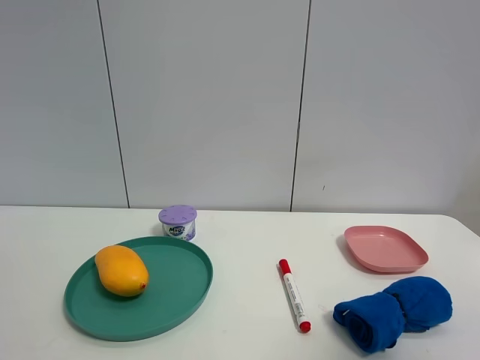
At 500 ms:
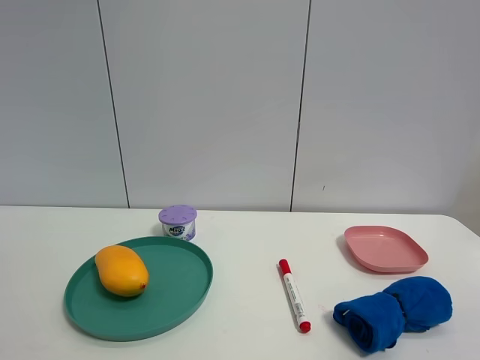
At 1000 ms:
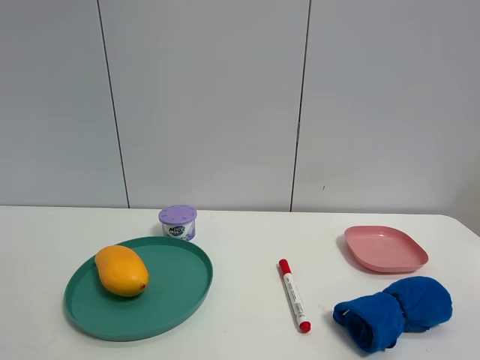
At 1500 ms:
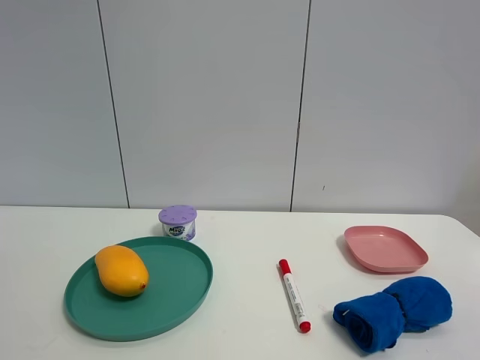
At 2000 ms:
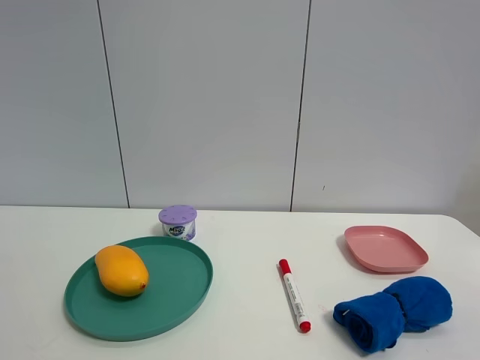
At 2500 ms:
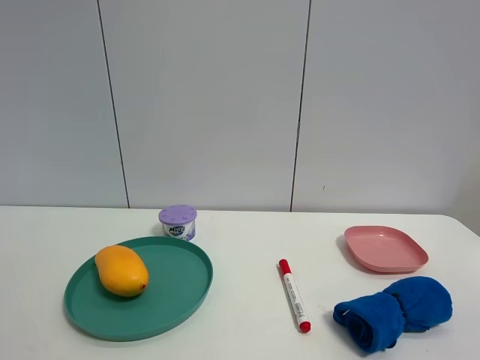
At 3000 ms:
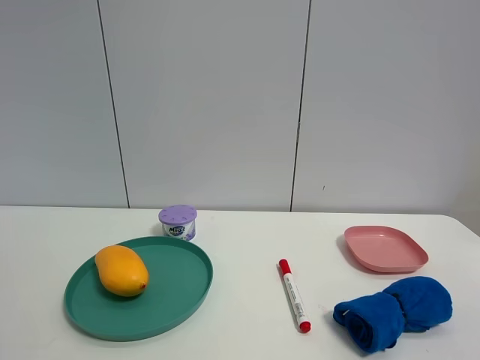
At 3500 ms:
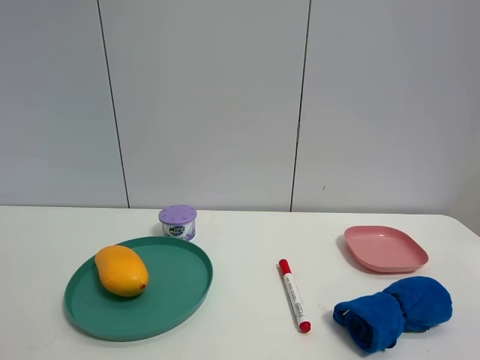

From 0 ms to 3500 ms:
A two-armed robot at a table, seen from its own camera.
Task of the whole recording: the gripper move the object.
From 2000 ms to 3500 ms: Neither gripper changes place.

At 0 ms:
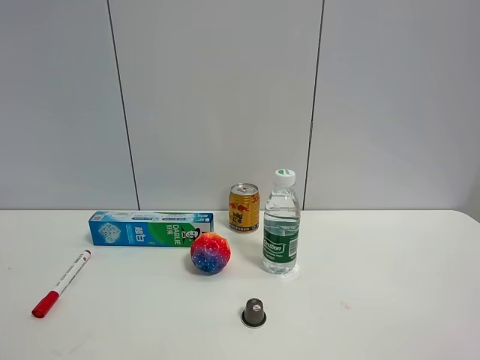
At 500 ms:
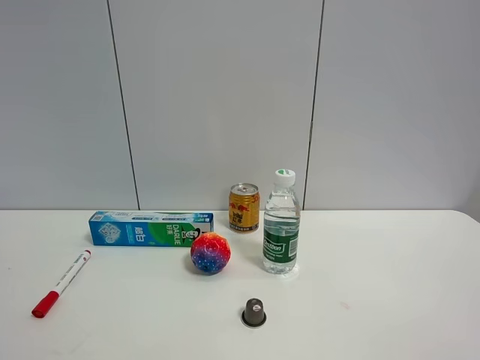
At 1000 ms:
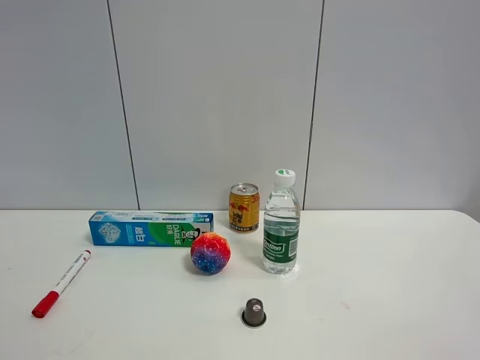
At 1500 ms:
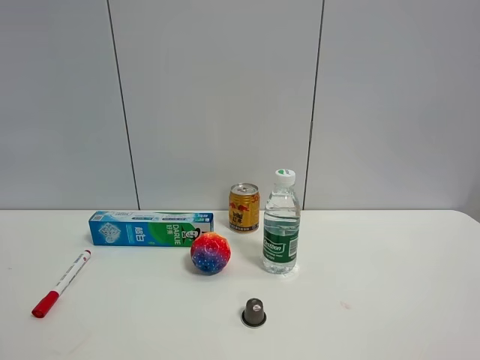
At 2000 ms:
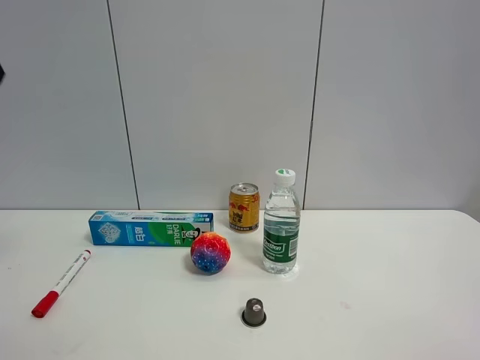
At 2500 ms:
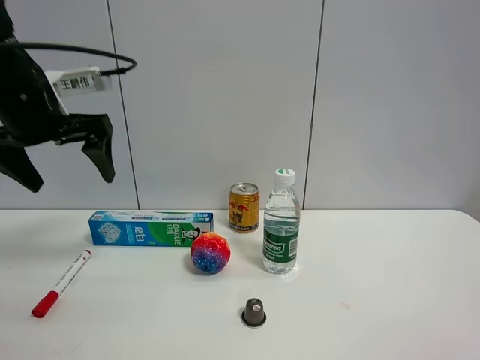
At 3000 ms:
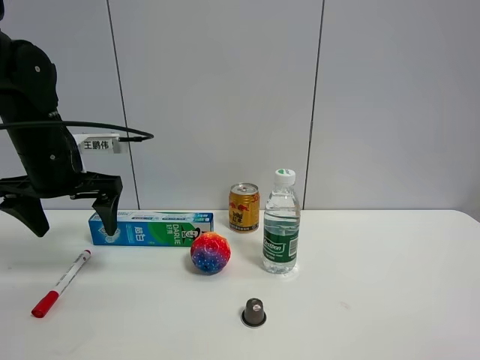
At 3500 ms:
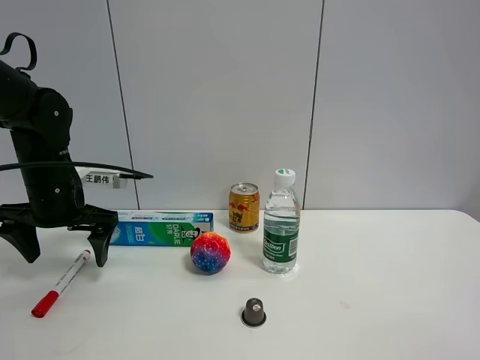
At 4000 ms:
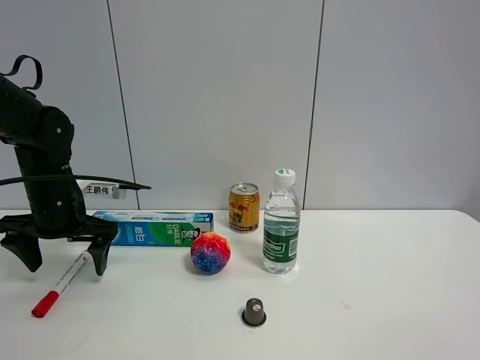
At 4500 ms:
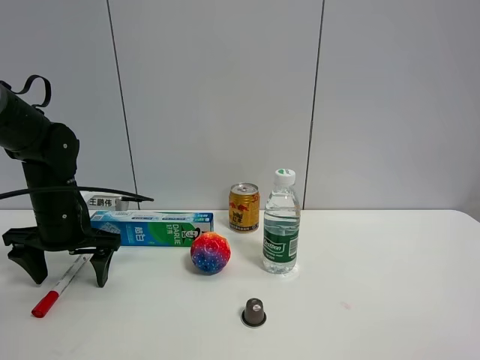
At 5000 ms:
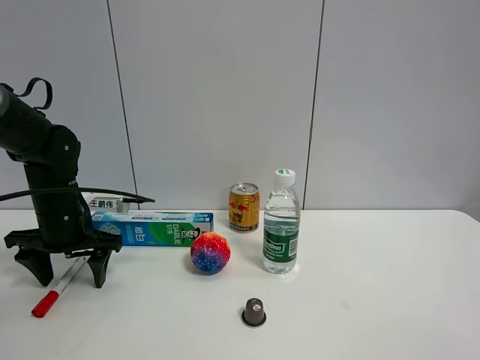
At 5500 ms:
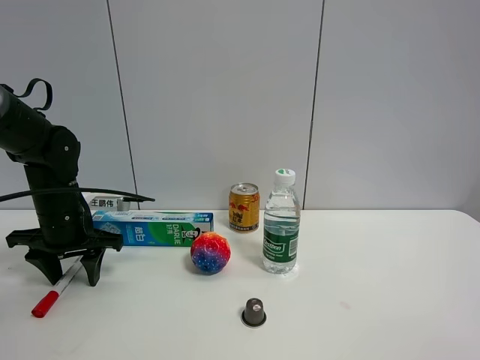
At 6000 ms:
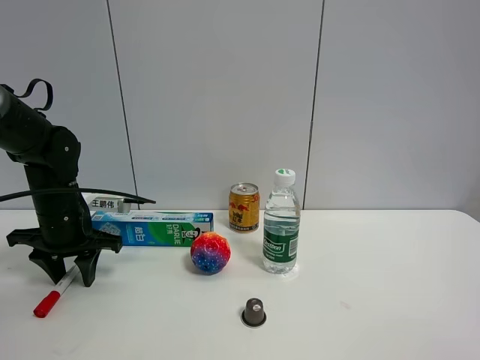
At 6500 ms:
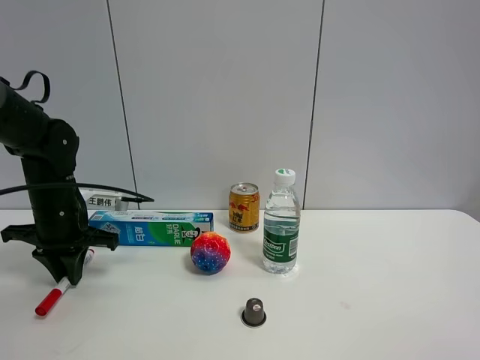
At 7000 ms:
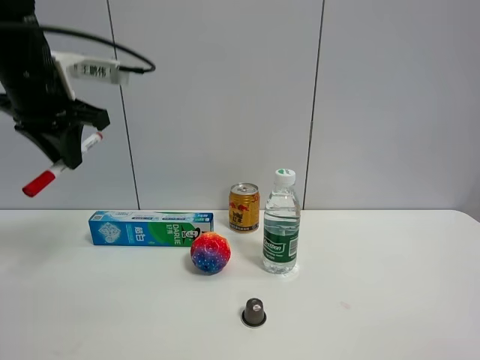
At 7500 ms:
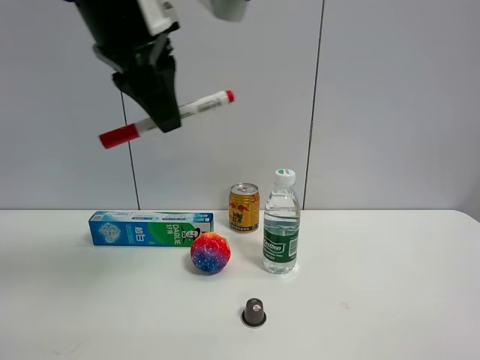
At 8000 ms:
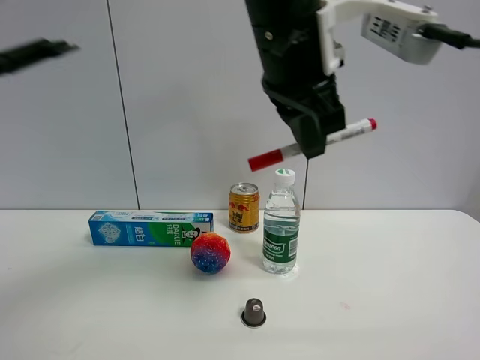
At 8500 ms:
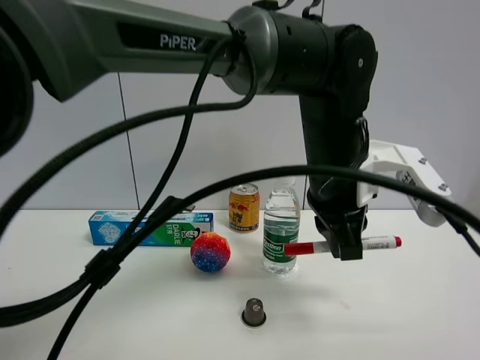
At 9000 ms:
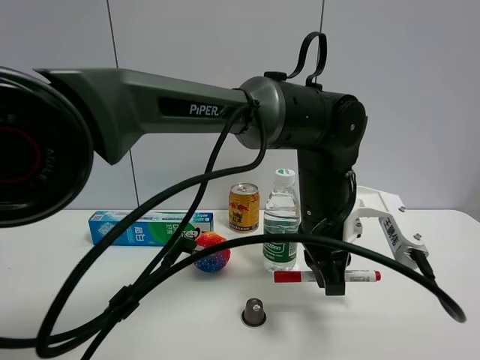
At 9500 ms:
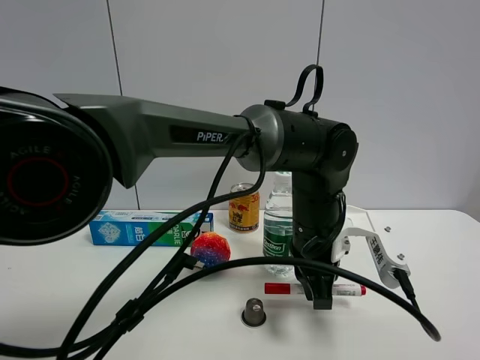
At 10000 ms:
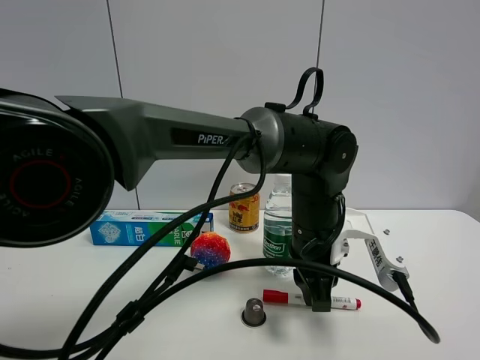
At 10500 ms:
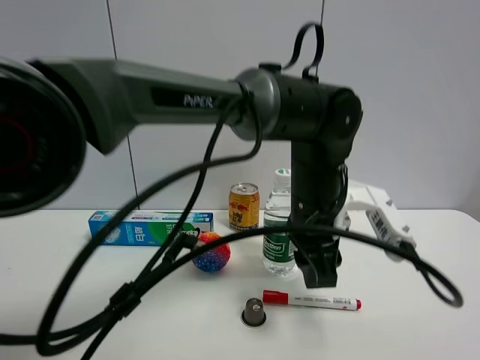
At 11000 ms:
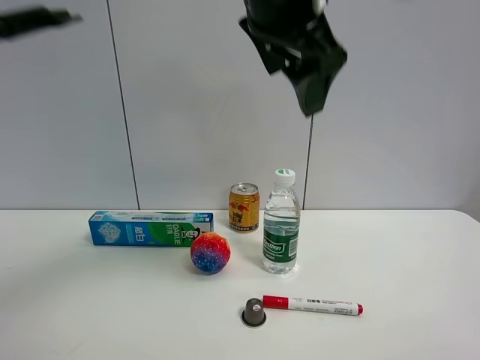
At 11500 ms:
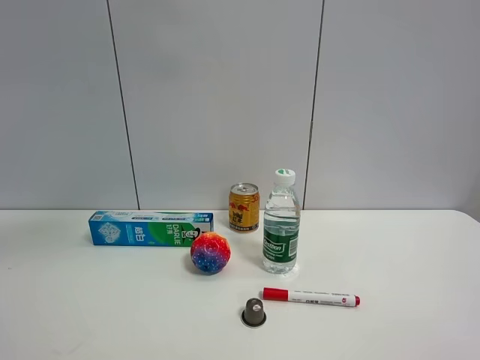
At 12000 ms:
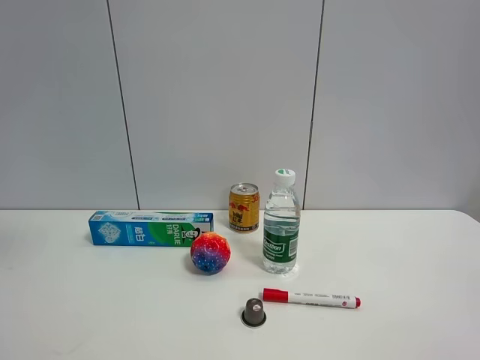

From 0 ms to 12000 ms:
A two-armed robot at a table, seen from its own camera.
Task of the whole recording: the gripper move the object.
Step, from 0 ms to 6000 ms: Grasp the red marker pen with the left gripper.
Step, from 6500 ms to 10000 ms: Place the red marker pen on the table with the left gripper.
From 2000 ms to 4000 ms: The left gripper moves downward and forward, some 30 cm.
From 4000 ms to 6000 ms: The left gripper closes its fingers.
From 6000 ms to 8000 ms: The left gripper shifts roughly 40 cm to the right and upward.
From 8000 ms to 10000 ms: The left gripper moves downward, approximately 20 cm.
From 10000 ms to 12000 ms: The left gripper is displaced upward and to the left by roughly 50 cm, and opens its fingers.

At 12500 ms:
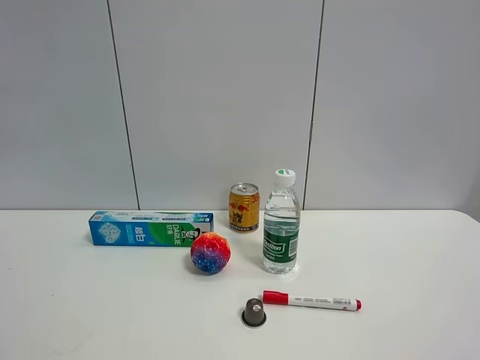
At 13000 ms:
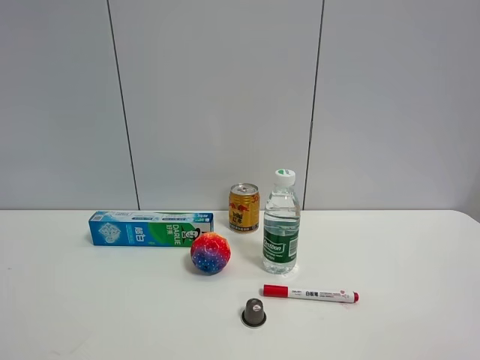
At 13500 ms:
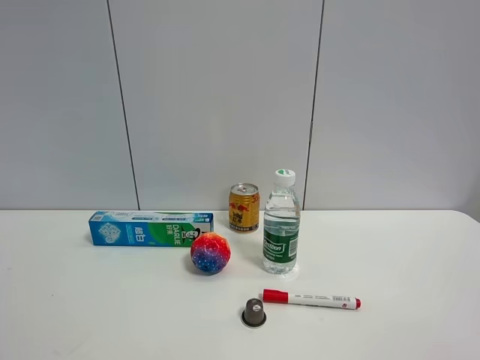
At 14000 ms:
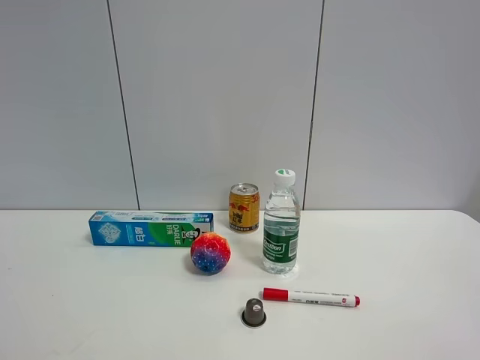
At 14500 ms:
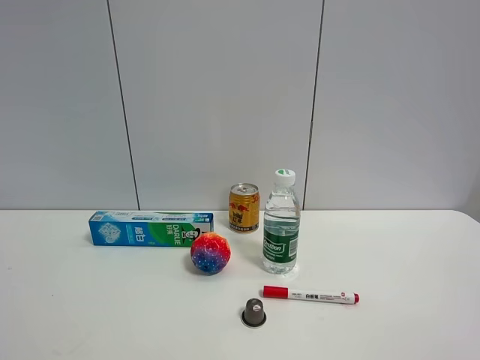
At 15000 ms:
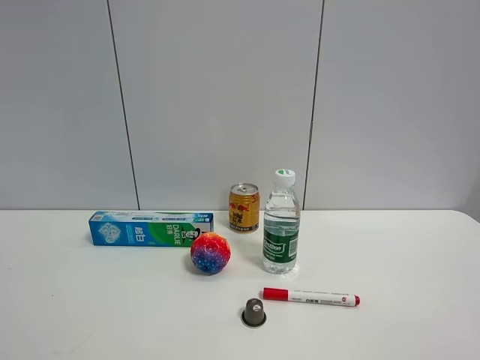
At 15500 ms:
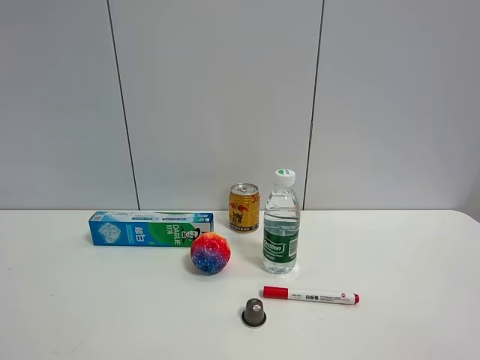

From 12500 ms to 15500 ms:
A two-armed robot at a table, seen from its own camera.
Task of the whole recording: the gripper move the object.
From 14000 ms to 15500 ms: Neither gripper changes place.

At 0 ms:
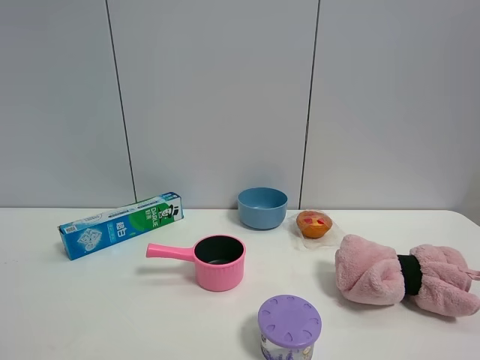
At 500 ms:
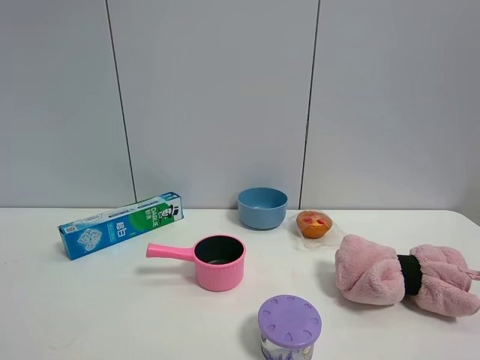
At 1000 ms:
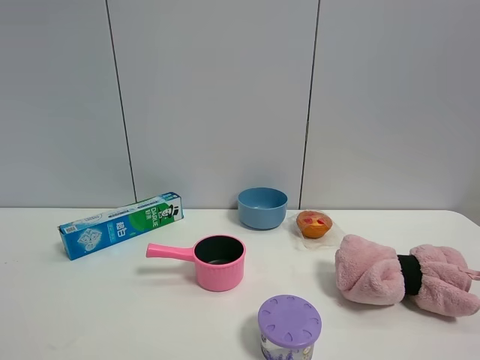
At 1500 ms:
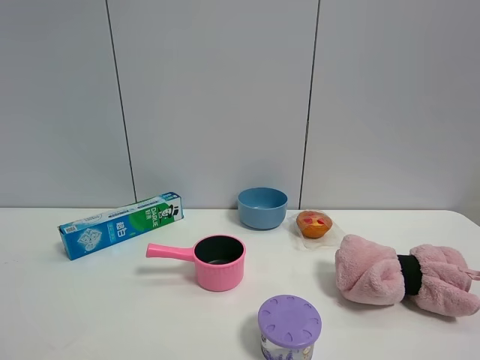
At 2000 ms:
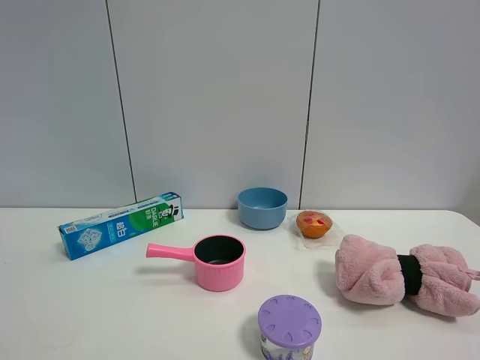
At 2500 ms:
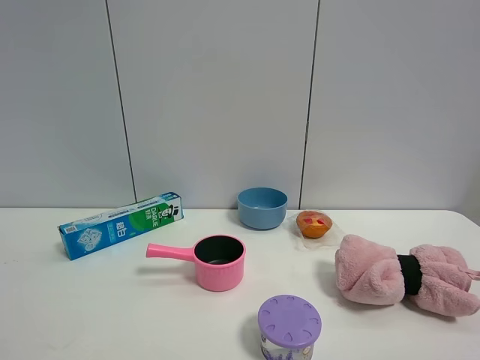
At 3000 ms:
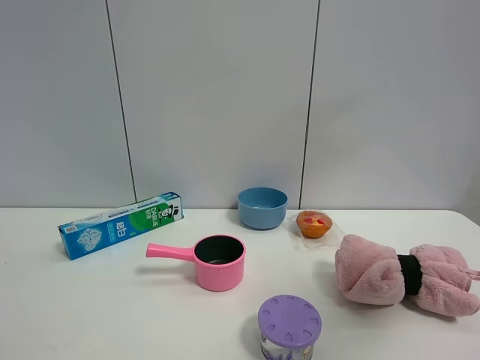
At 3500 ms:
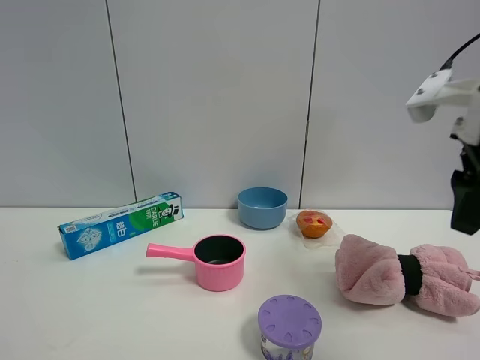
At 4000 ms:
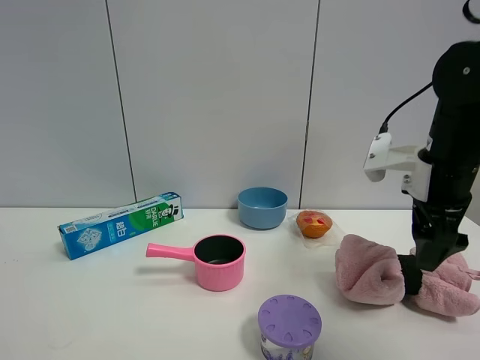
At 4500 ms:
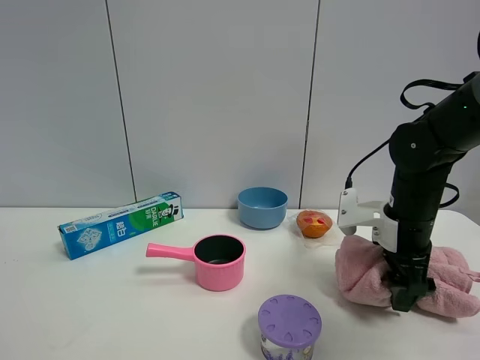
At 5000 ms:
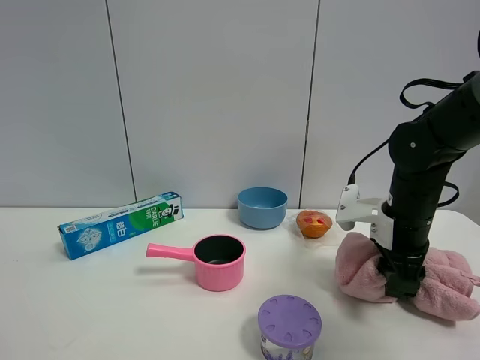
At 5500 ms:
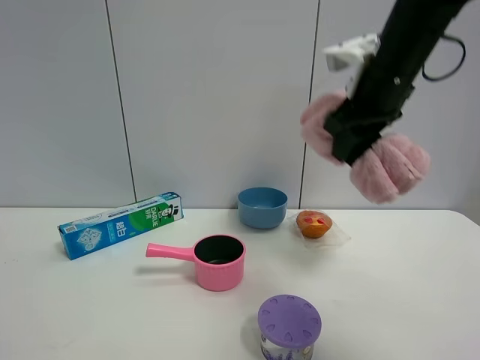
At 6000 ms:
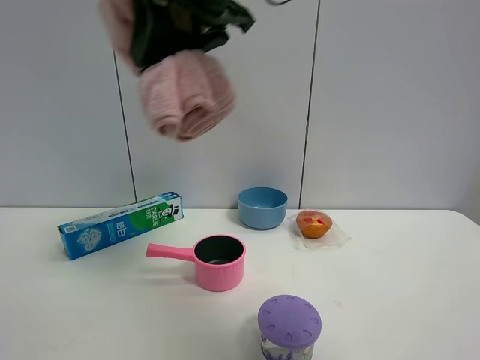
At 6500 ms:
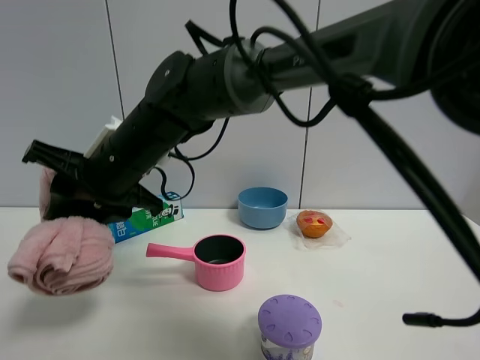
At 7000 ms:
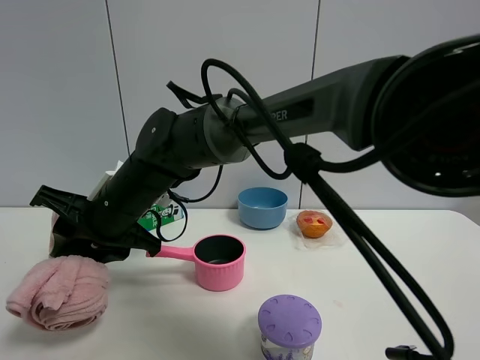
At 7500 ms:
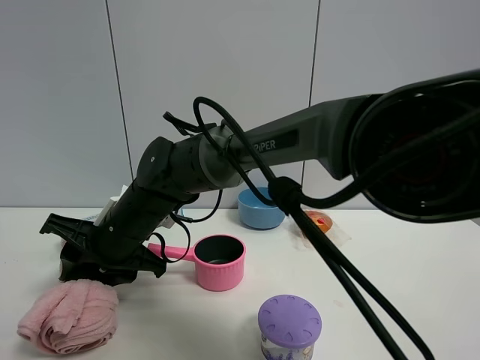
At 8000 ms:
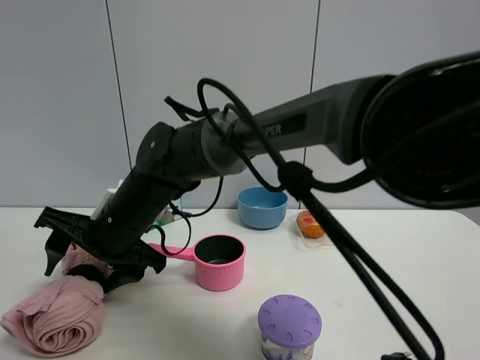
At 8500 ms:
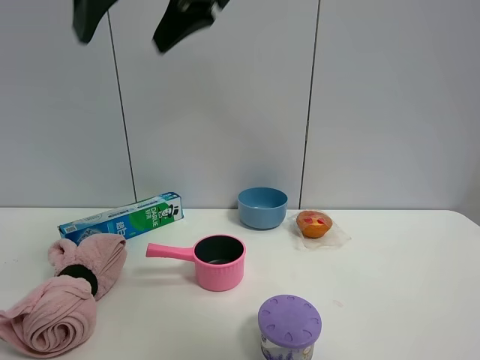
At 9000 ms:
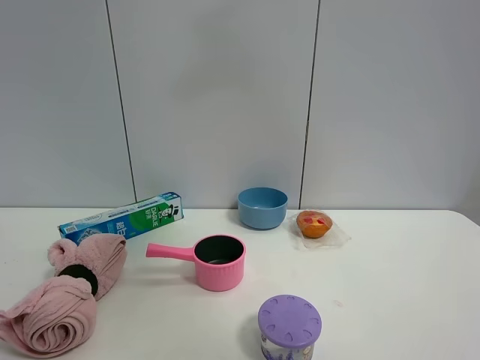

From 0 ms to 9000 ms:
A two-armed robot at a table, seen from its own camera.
Task of the whole recording: the gripper move the object.
Step, from 0 ms to 5000 ms: Grasp the pink towel with the right gripper.
Step, from 5500 ms to 8000 ms: Place the pink towel on the table with the right gripper.
From 0 ms to 2000 ms: Both grippers stay put.
From 2000 ms to 4500 ms: The right gripper goes roughly 40 cm forward and downward.
From 4500 ms to 7000 ms: The right gripper travels to the left by some 35 cm, and closes up.
From 7000 ms to 9000 ms: The right gripper heads upward and to the right, covering some 40 cm, and opens up.
